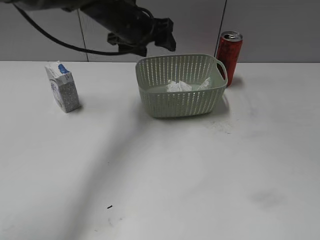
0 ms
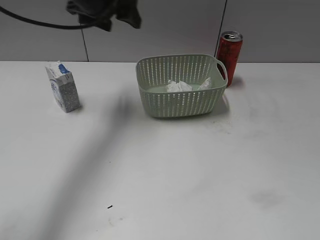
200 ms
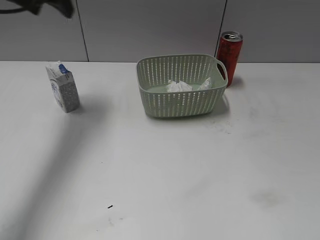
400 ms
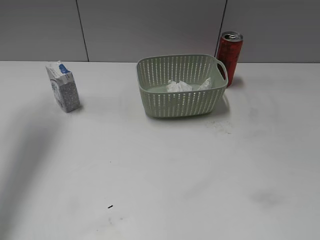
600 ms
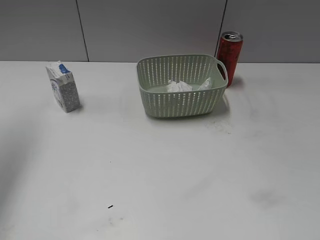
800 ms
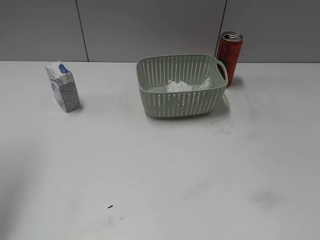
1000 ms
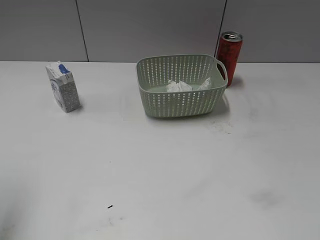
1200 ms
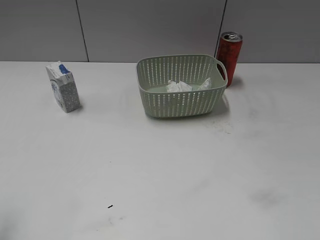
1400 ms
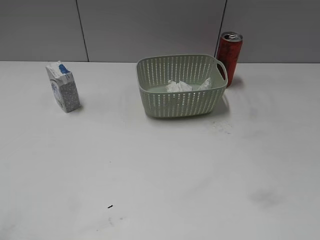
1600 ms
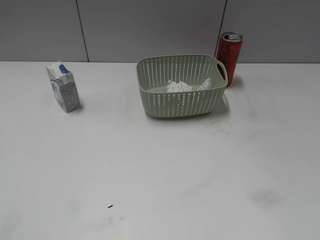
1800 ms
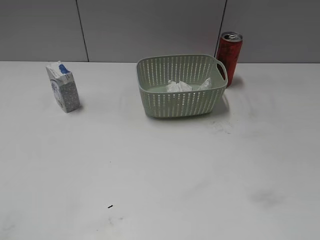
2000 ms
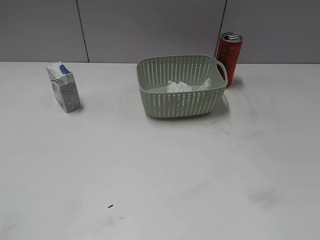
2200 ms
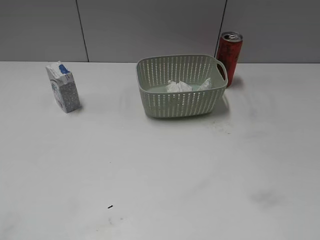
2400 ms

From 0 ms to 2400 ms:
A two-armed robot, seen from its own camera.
From 0 ms to 1200 ms: The left gripper is displaced to the left, backward and upward by about 35 cm.
From 1200 ms to 2400 ms: The left gripper travels backward and downward by roughly 20 cm.

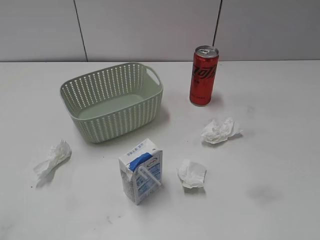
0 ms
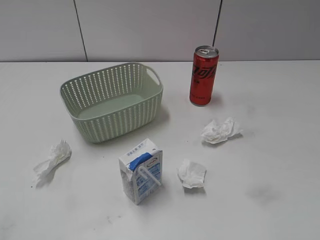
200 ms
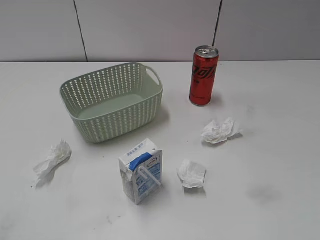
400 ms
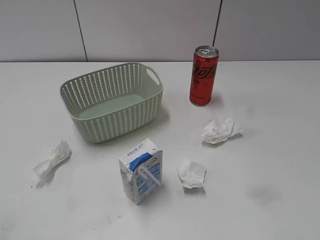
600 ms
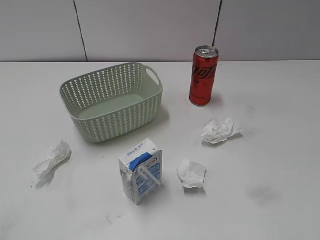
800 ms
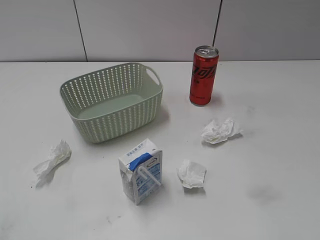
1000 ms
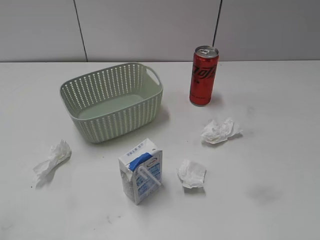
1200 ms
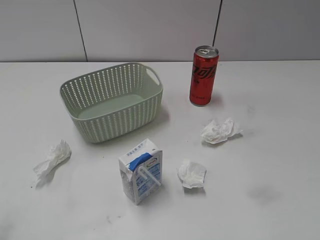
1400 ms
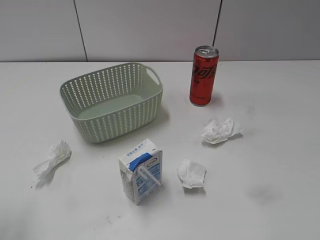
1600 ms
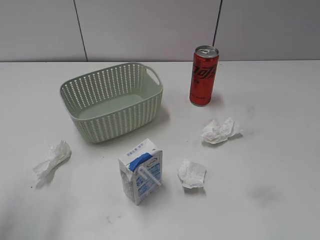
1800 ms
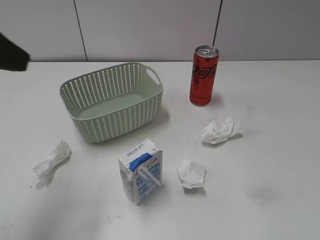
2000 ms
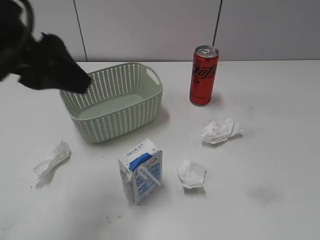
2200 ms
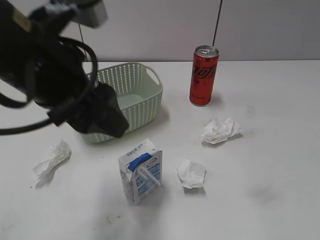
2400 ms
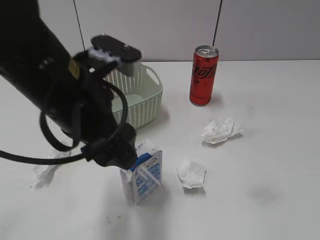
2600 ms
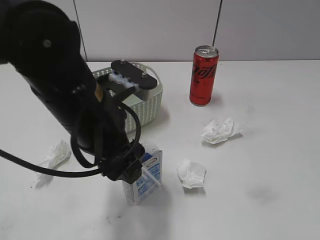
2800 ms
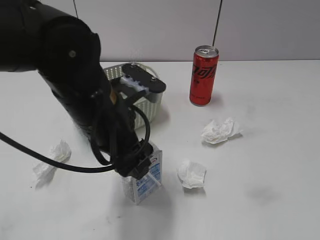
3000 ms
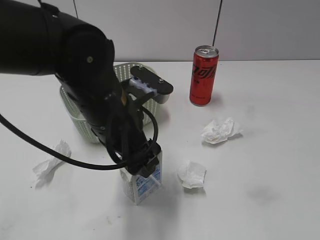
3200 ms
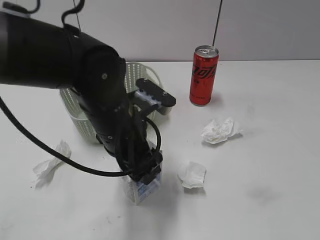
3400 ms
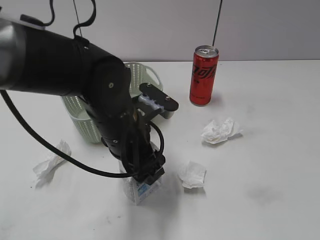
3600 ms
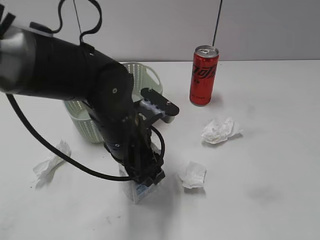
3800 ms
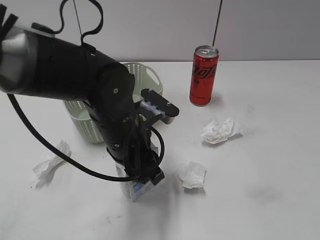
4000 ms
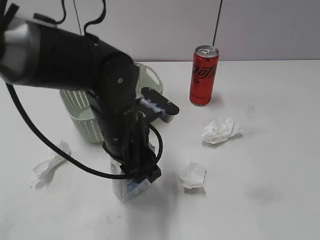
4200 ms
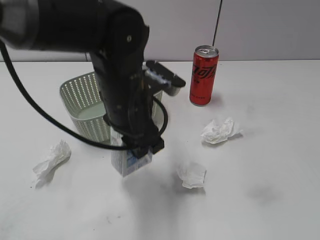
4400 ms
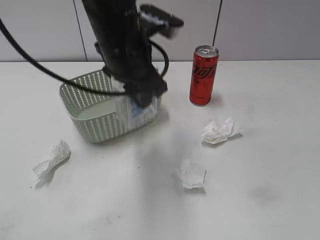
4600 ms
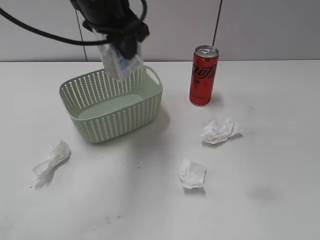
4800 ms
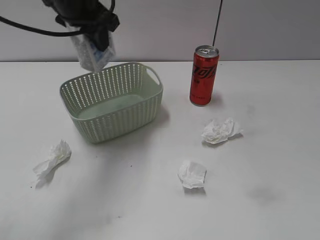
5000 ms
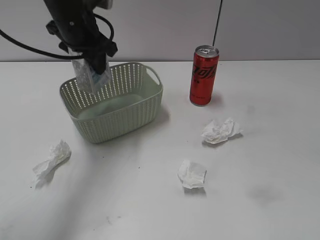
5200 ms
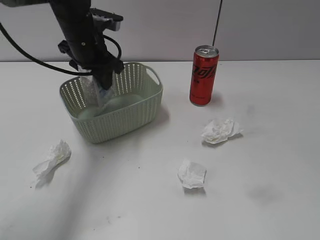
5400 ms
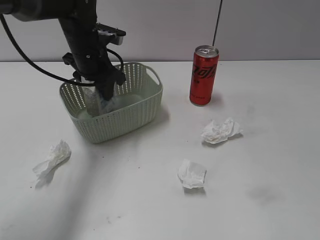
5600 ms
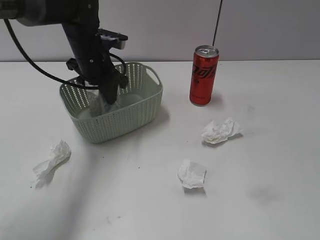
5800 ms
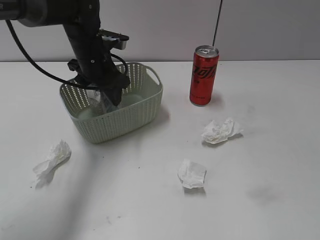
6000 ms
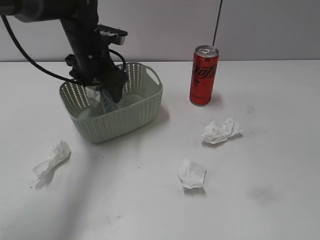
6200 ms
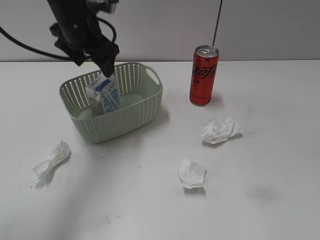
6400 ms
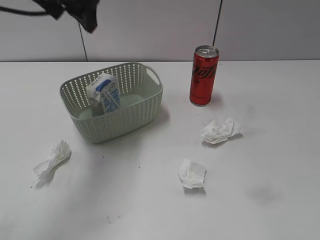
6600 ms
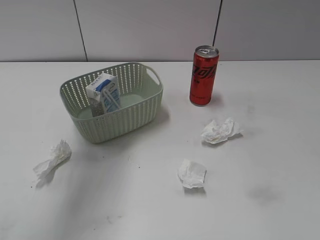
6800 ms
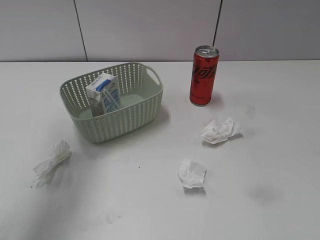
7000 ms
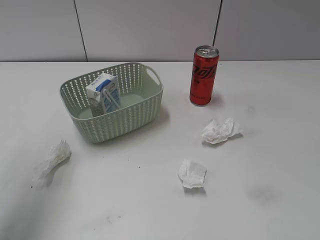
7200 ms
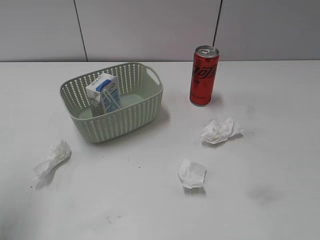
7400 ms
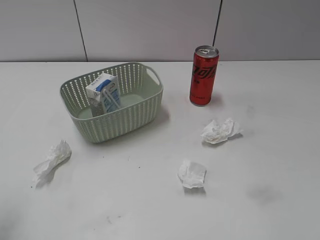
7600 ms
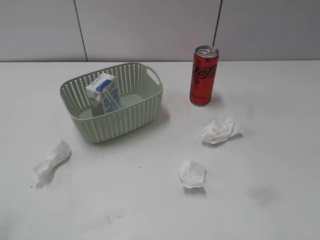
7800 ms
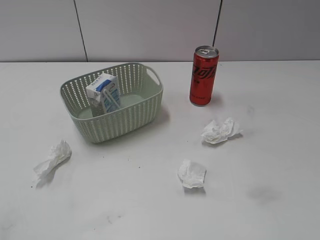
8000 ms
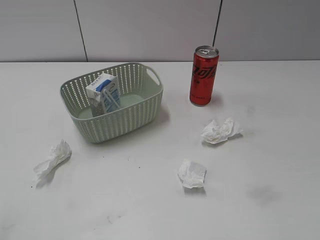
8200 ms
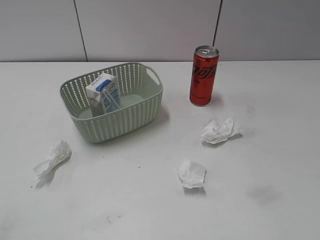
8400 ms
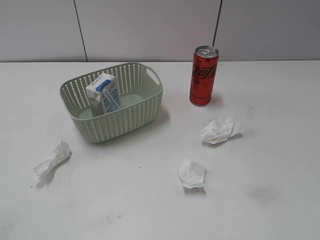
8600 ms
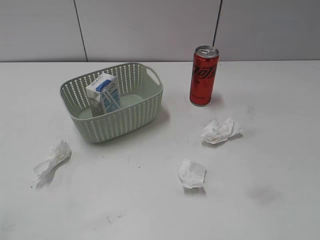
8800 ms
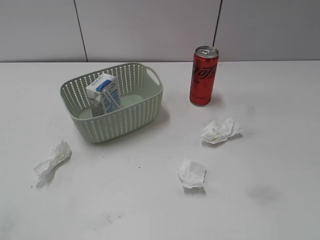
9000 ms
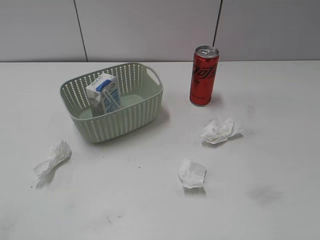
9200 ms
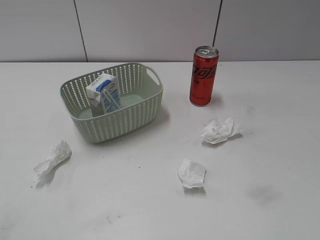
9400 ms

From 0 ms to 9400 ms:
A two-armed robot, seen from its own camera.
Step, from 2000 ms to 4000 ms: Grasp the milk with left gripper.
Step, from 4200 ms to 6400 ms: Place the milk in the basket with left gripper.
From 1600 ms to 3200 ms: The left gripper travels to the right, forward and downward by some 30 cm.
From 3200 ms to 4800 ms: The left gripper is displaced upward and forward by approximately 15 cm, and closes.
From 4800 ms to 6200 ms: The left gripper goes roughly 15 cm downward and forward, and opens up.
From 6200 ms to 7800 ms: The left gripper travels backward and to the left by some 40 cm.

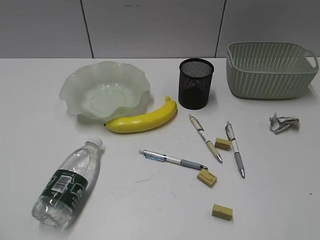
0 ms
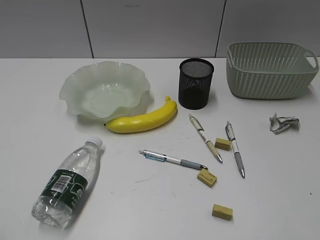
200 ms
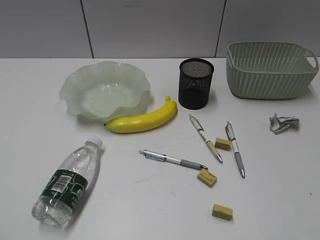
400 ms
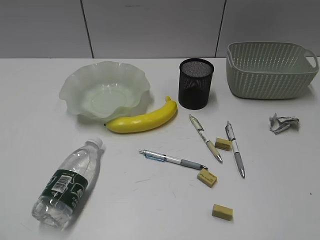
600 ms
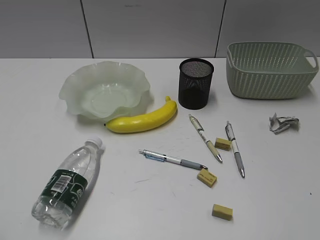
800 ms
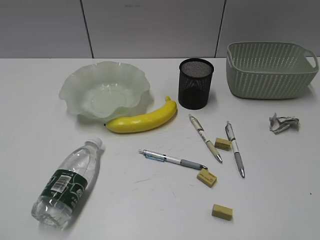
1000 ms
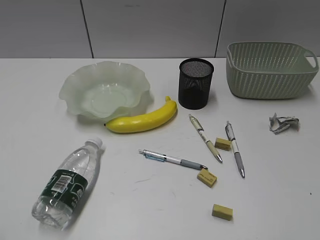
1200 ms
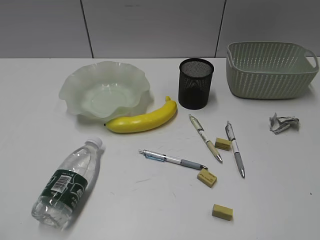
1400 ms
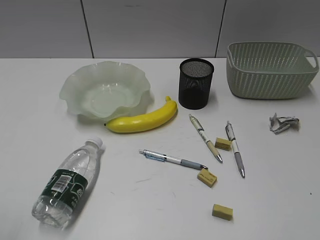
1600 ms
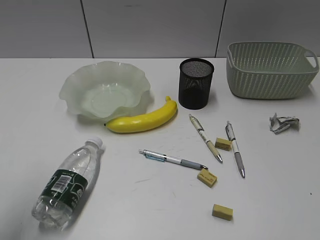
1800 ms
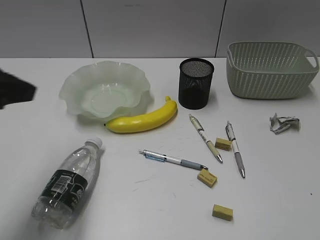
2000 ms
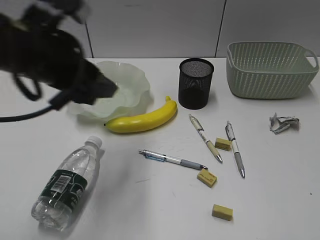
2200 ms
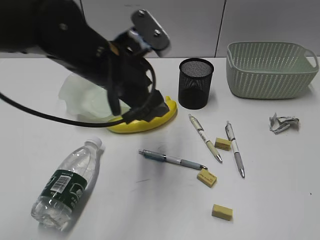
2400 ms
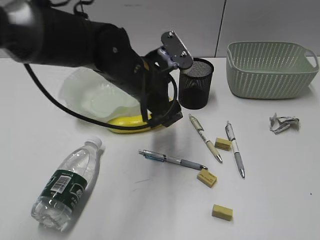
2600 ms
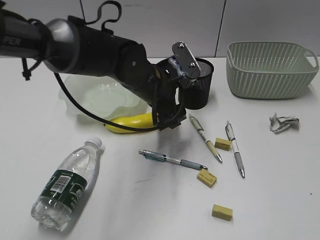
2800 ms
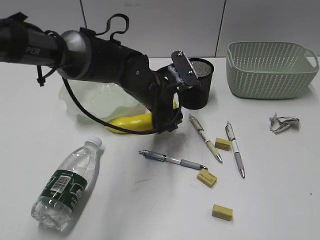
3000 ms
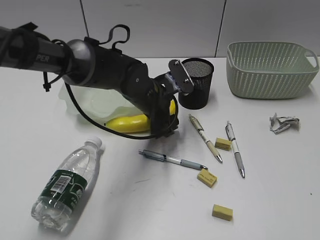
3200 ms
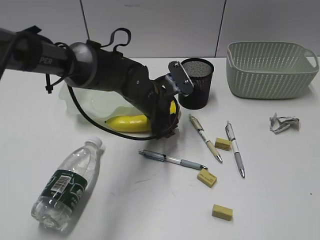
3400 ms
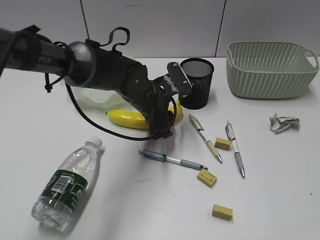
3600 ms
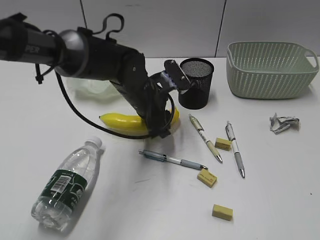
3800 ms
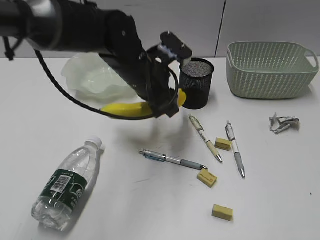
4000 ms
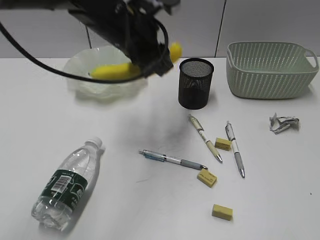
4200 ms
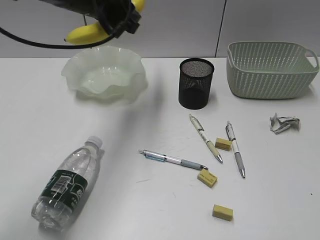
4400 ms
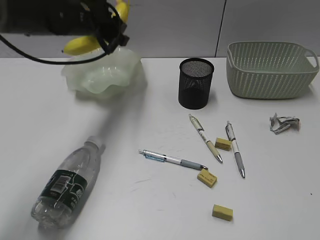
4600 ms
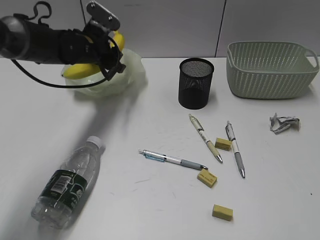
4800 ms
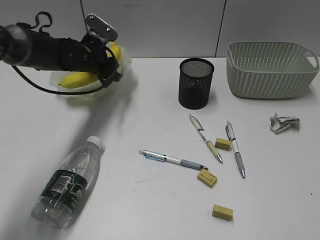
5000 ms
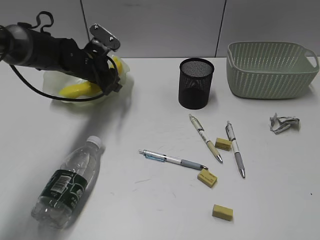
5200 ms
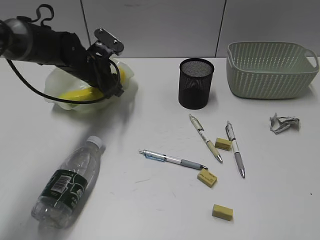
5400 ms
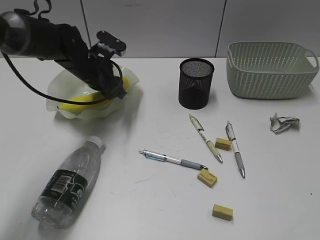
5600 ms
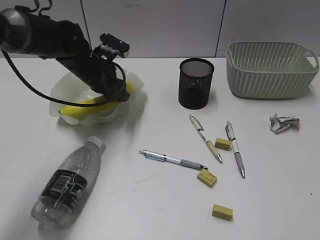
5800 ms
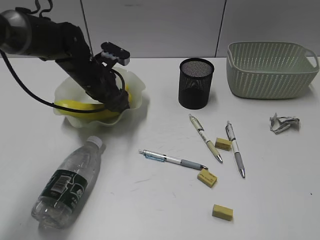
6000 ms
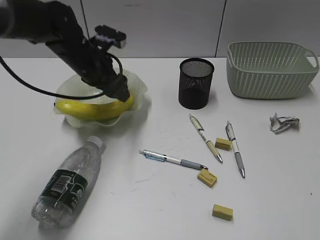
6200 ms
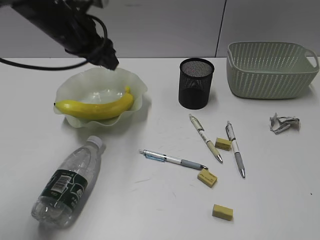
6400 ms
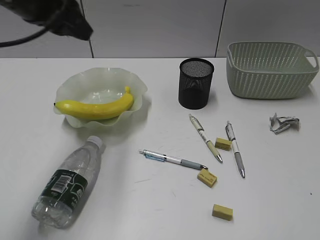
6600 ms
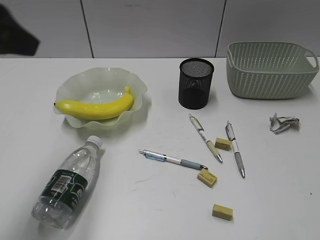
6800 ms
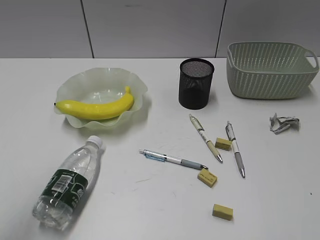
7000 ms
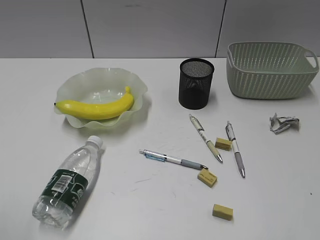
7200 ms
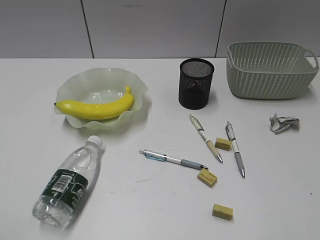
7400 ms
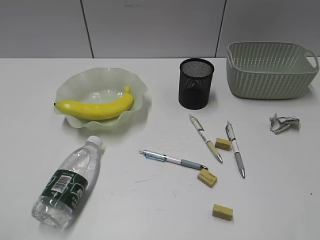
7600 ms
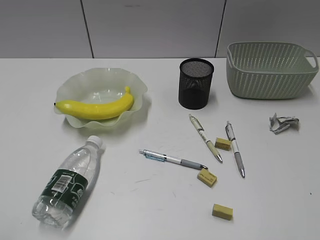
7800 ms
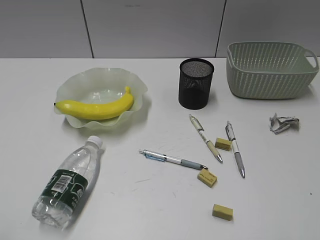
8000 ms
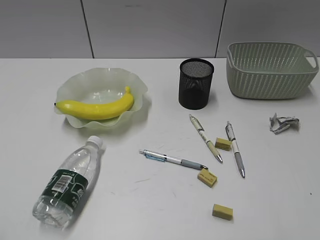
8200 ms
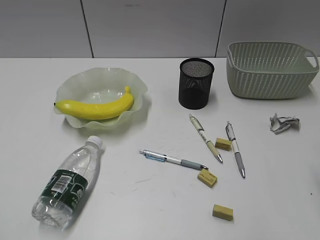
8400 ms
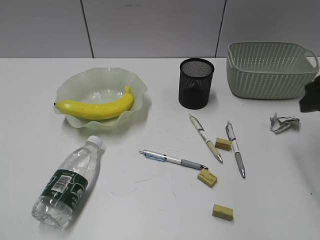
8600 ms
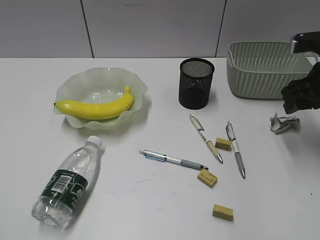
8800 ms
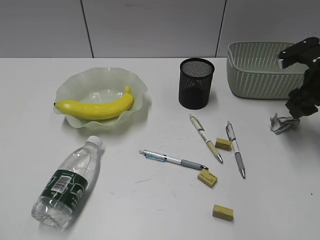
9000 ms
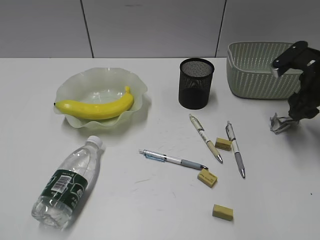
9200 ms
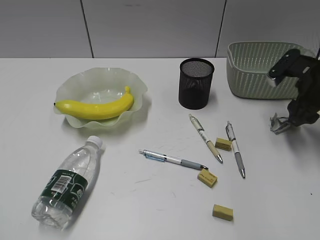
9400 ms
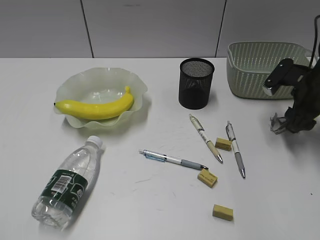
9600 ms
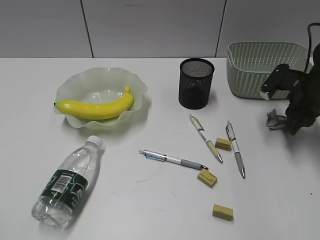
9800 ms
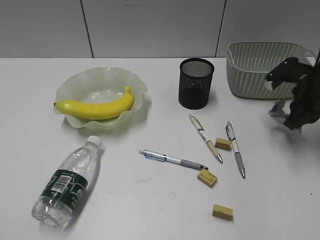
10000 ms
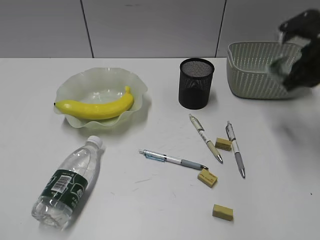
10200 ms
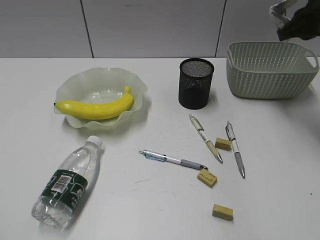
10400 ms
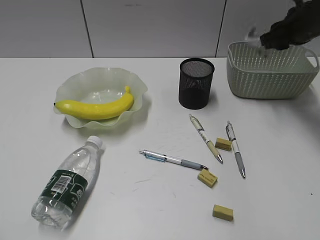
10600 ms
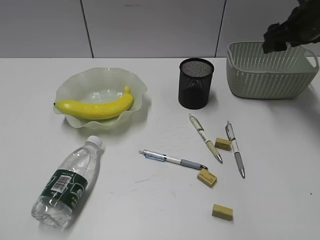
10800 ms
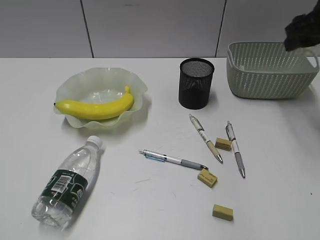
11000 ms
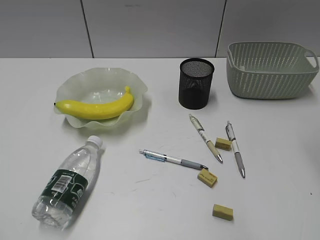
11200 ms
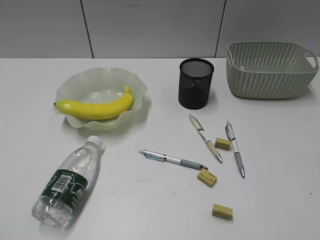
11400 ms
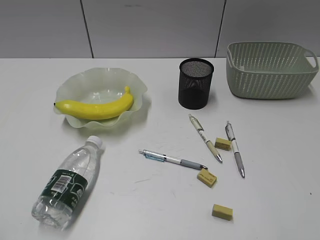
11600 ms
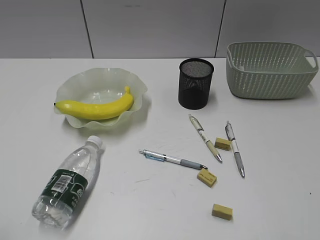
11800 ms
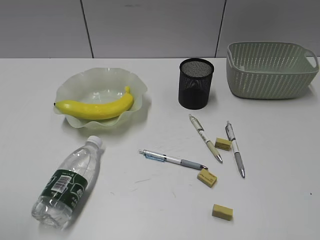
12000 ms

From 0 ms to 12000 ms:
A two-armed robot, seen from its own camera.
Step, from 1600 ms to 3600 ms: Grasp the banana with left gripper.
Step, from 3800 ms to 6200 ms: Place the banana in the plate with left gripper.
Step, from 6400 ms to 9800 ms: Grasp the waste paper with right gripper.
Step, from 10000 ms to 10800 ms: Place the waste paper in the basket with right gripper.
From 1600 ms to 3000 ms: The left gripper is displaced forward, to the right and downward by about 50 cm, and opens up.
From 3000 ms to 4400 ms: The left gripper shifts some 20 cm upward and to the left, and closes its fingers.
From 4400 ms to 6000 ms: The left gripper travels downward by some 15 cm.
From 6000 ms to 7600 ms: The left gripper goes about 50 cm backward and to the left.
From 7600 ms to 9000 ms: The right gripper travels forward by about 35 cm, and opens up.
From 9000 ms to 10400 ms: The right gripper goes approximately 10 cm upward, and closes.
From 10400 ms to 12000 ms: The right gripper shifts some 40 cm backward, and opens its fingers.
